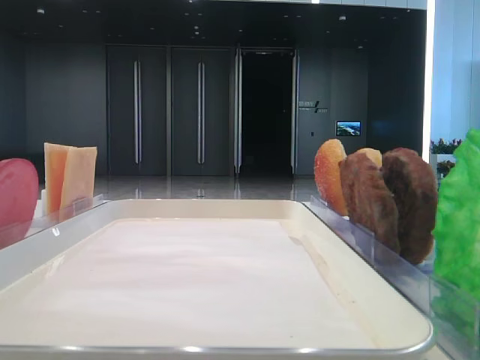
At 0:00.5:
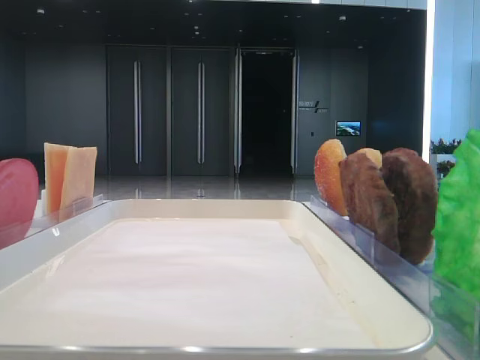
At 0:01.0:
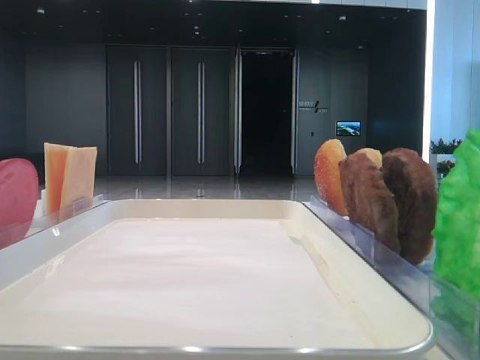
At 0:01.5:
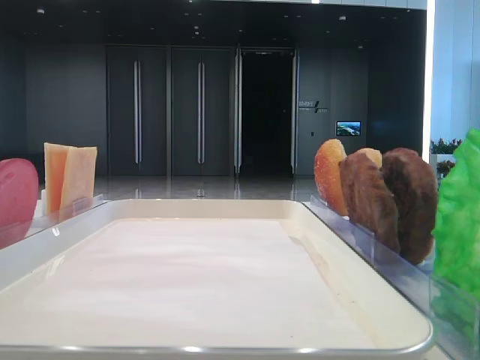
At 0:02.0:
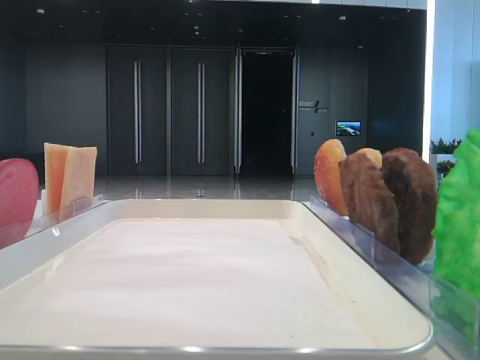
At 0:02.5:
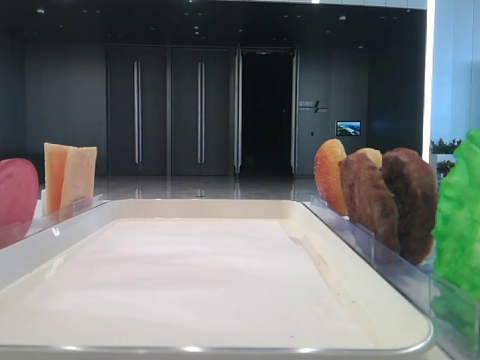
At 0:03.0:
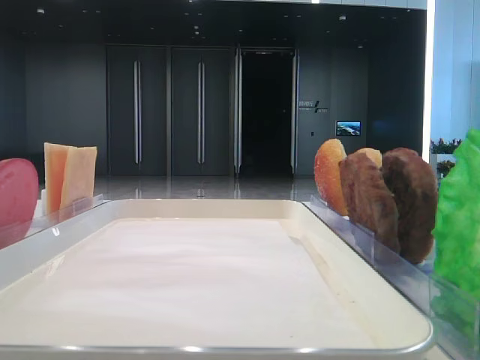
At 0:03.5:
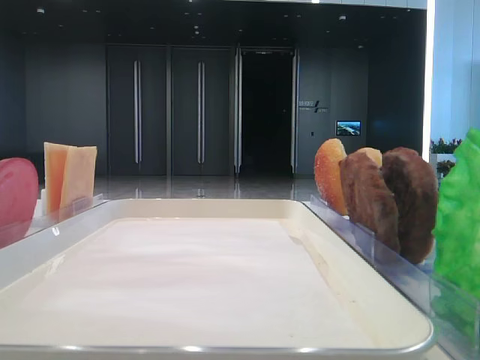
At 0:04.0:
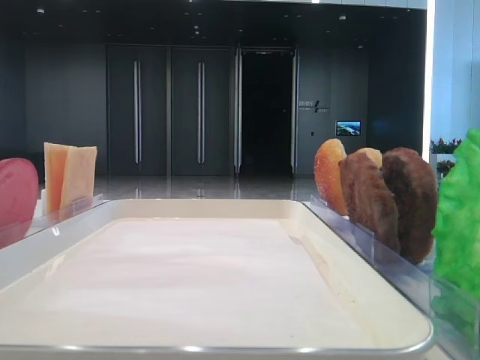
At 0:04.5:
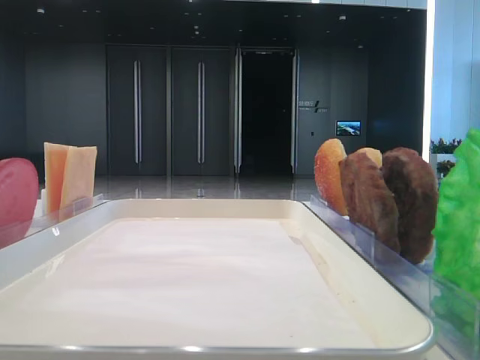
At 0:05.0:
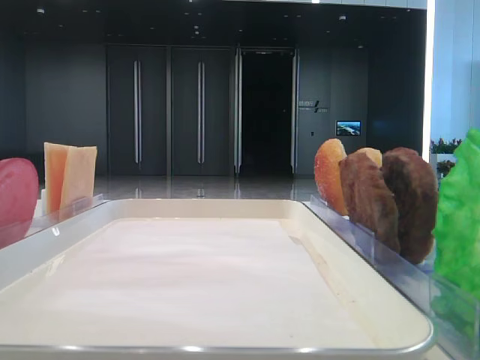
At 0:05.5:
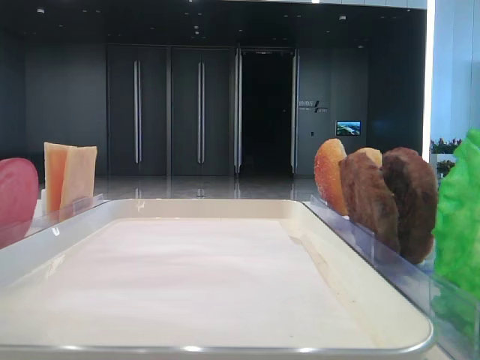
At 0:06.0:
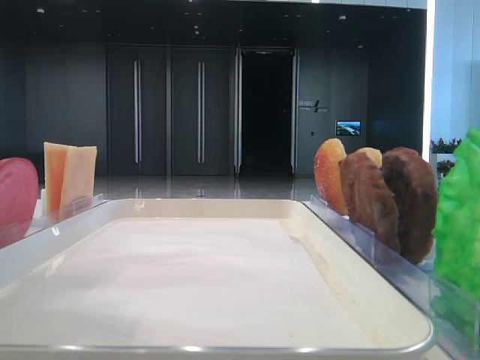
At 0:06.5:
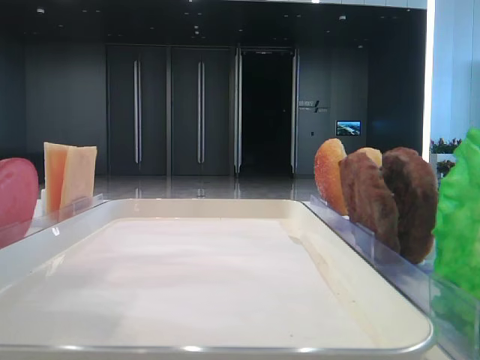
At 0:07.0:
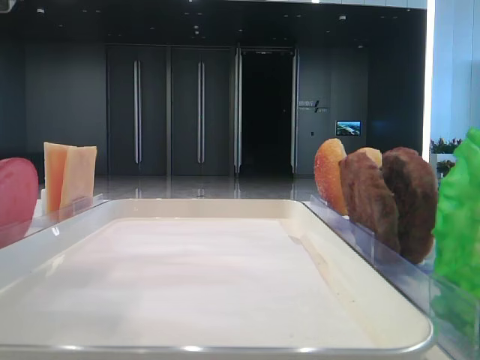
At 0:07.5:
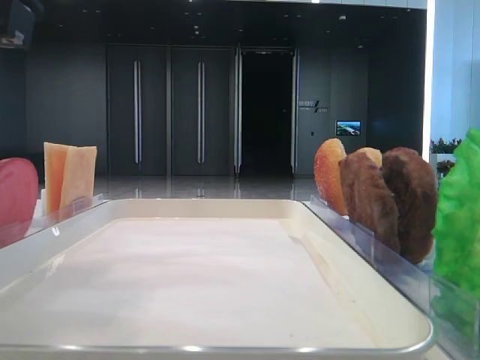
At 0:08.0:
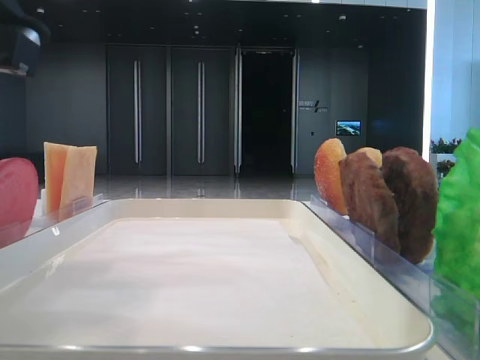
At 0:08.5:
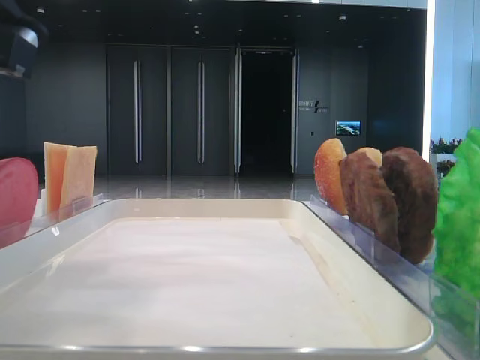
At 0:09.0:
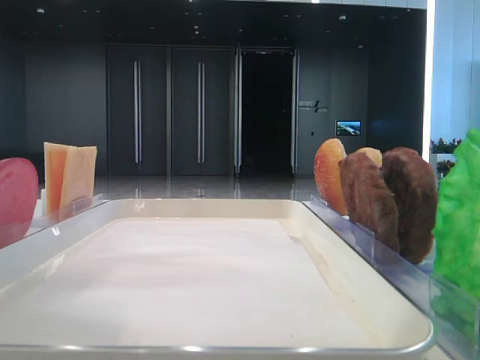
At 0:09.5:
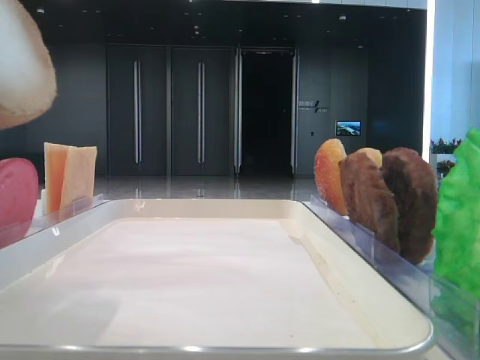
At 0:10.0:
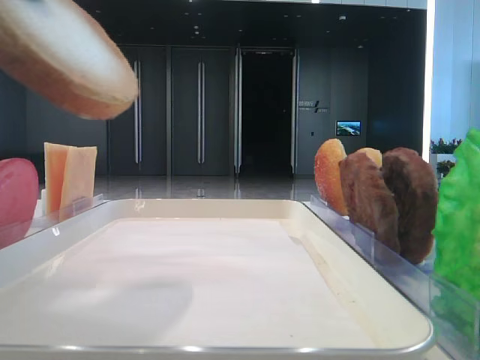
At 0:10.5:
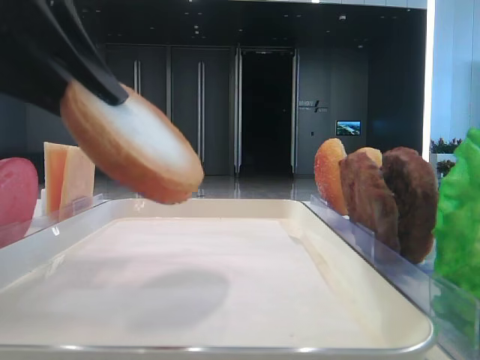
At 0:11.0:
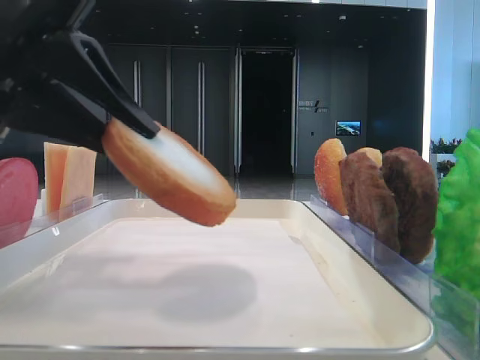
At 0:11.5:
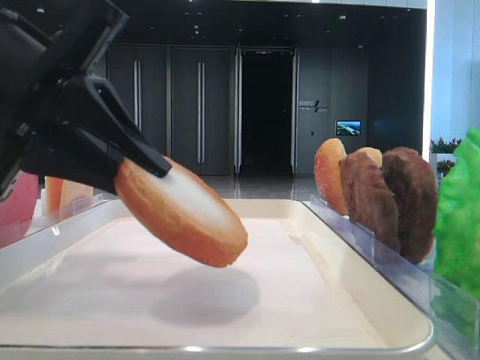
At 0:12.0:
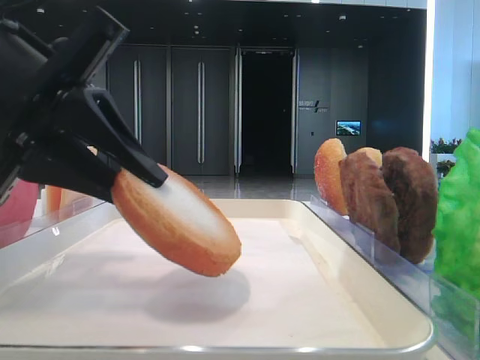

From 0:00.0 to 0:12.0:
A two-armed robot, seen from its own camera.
Step, from 0:00.0 to 0:07.5: Pick up the bottom bread with the left hand.
From 0:04.0 to 0:06.0: The left gripper travels to the right by about 15 cm.
From 0:08.0 to 0:10.0: The left gripper is displaced upward by approximately 5 cm, and closes up.
From 0:10.0 to 0:12.0: The left gripper is displaced downward and forward by roughly 15 cm.

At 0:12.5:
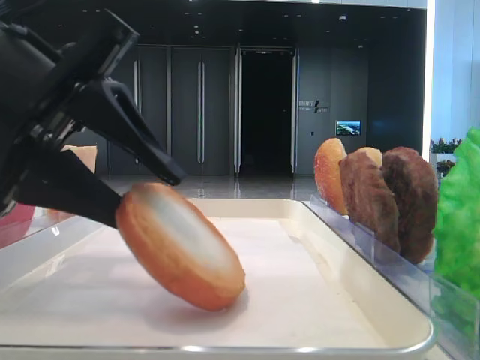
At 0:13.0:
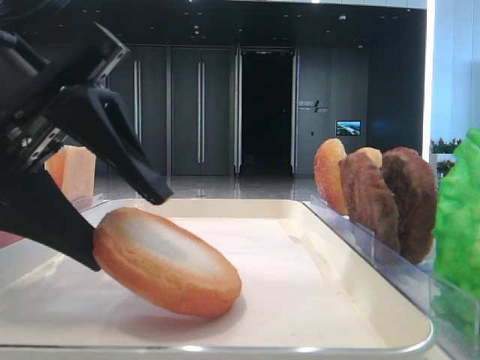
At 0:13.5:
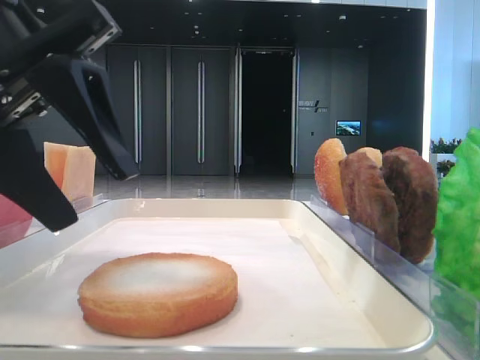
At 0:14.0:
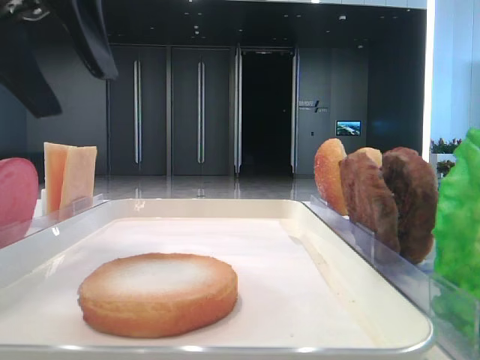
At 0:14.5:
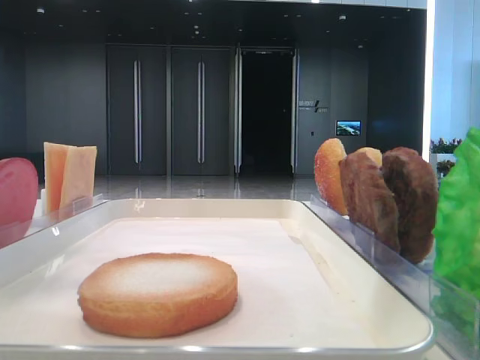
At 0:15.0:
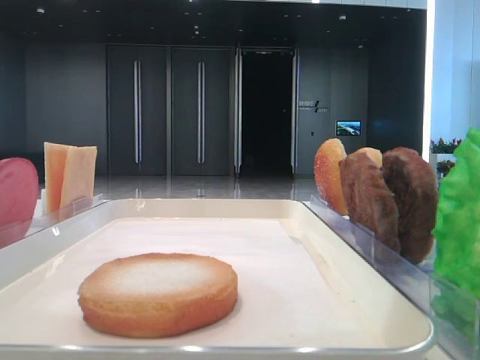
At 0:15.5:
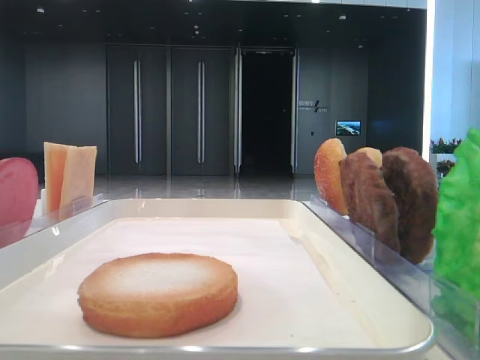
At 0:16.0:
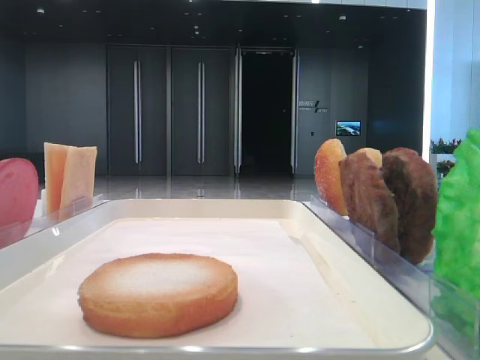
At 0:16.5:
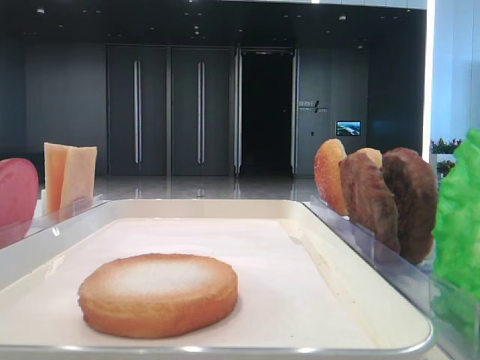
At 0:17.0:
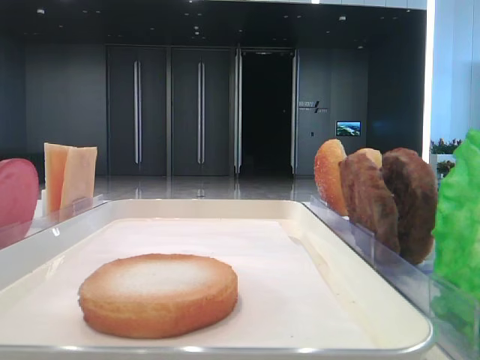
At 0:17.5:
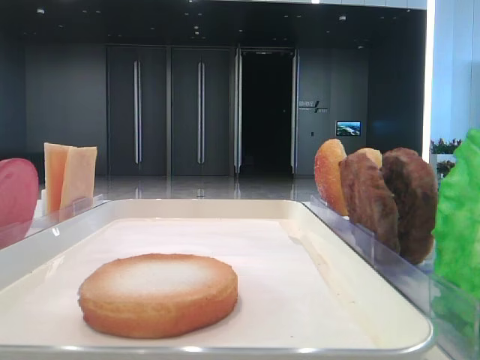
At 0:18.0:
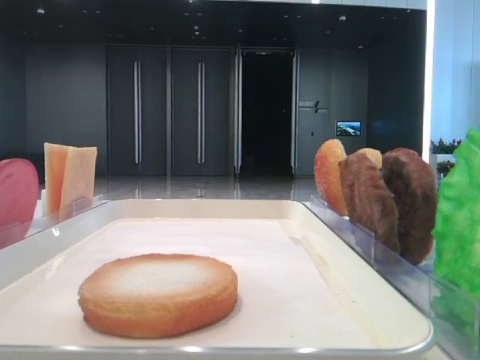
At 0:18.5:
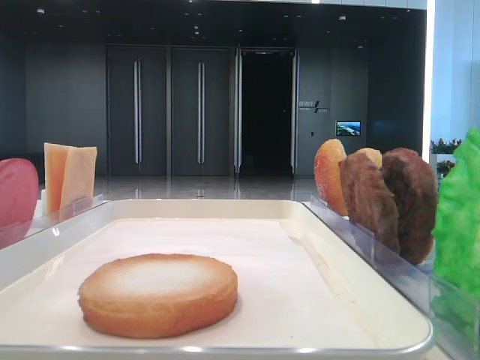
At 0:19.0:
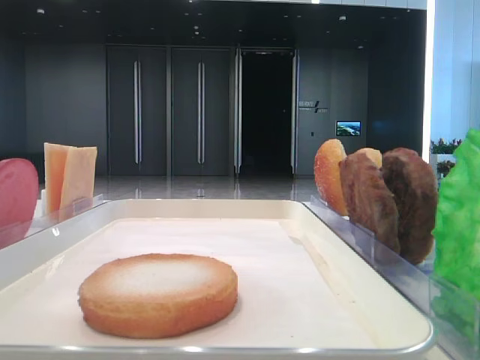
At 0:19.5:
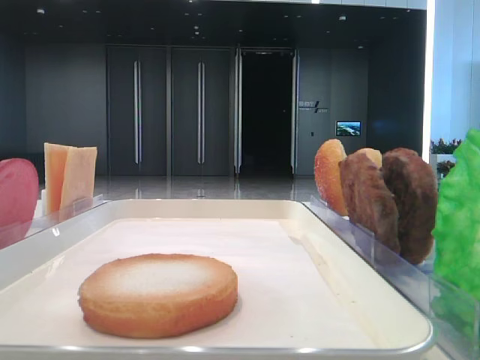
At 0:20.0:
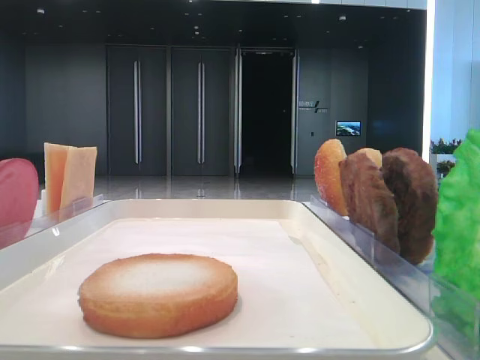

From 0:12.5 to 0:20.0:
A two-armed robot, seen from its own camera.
From 0:12.5 to 0:14.5: The left gripper moves upward and to the left, some 15 cm, and opens up.
From 0:18.0 to 0:20.0: Neither gripper changes place.

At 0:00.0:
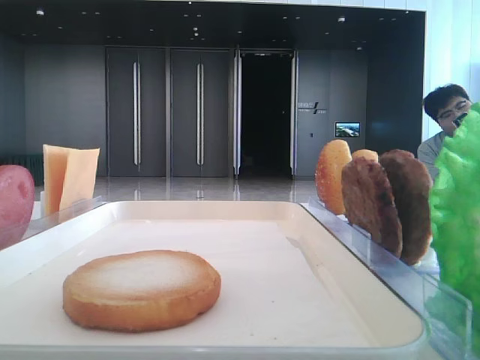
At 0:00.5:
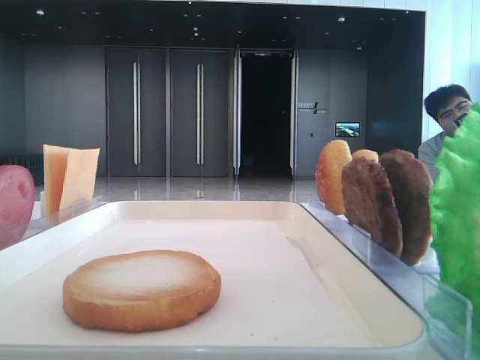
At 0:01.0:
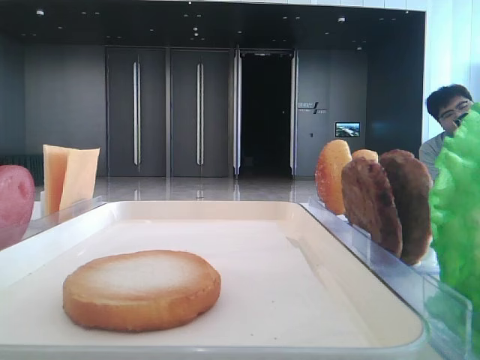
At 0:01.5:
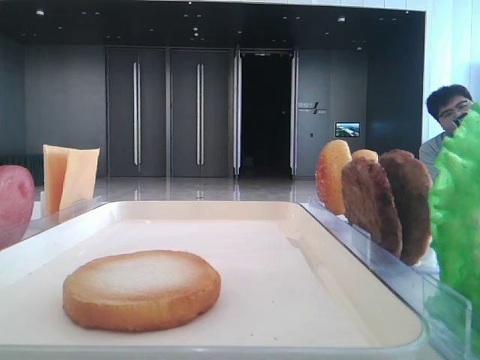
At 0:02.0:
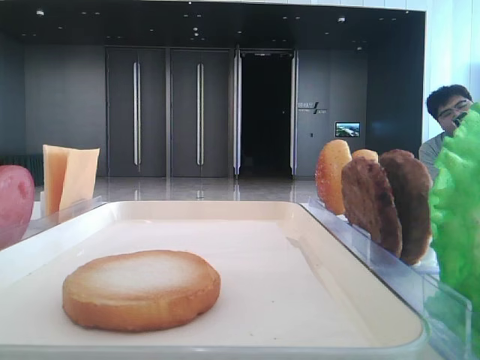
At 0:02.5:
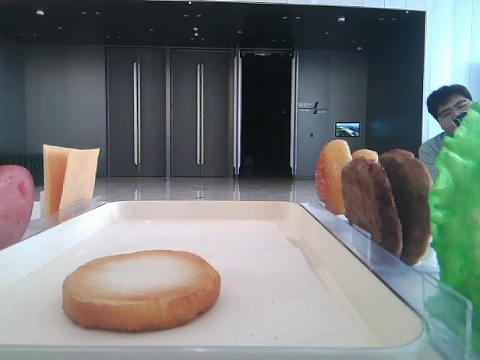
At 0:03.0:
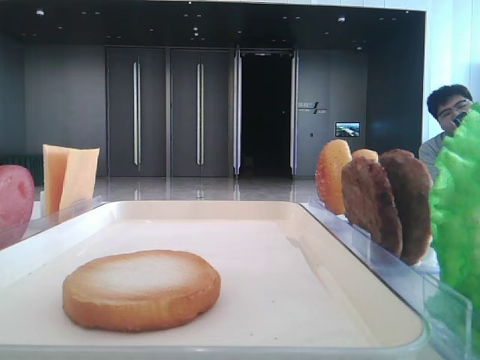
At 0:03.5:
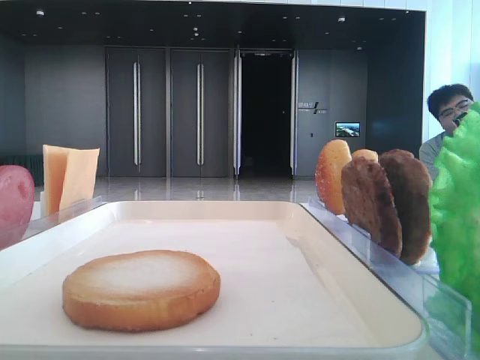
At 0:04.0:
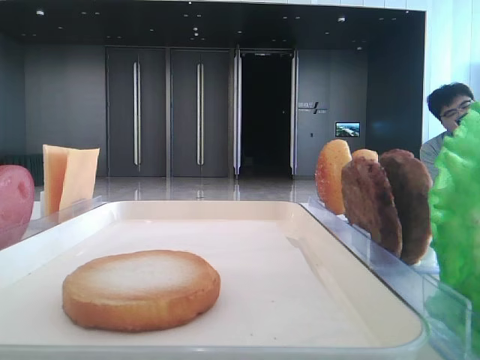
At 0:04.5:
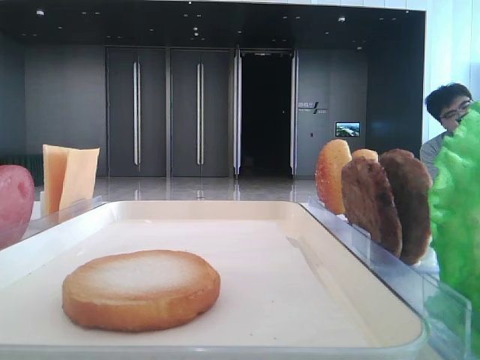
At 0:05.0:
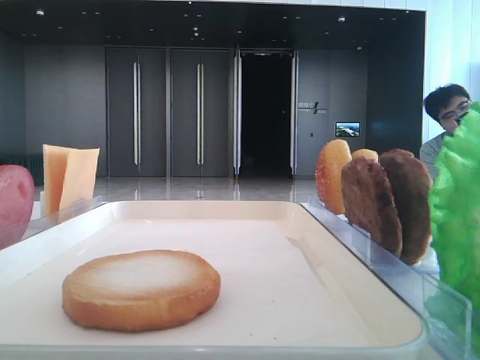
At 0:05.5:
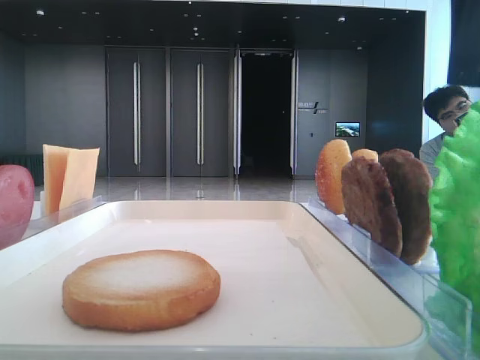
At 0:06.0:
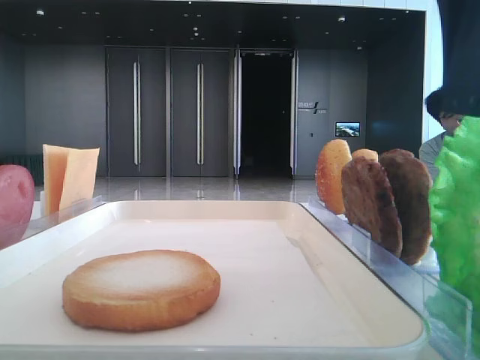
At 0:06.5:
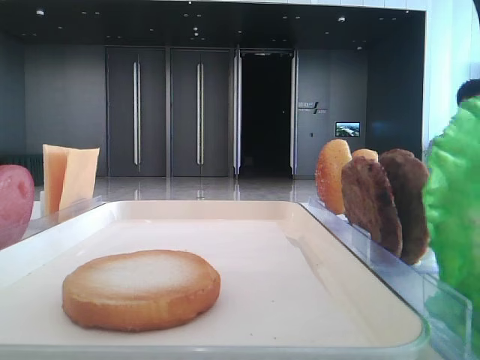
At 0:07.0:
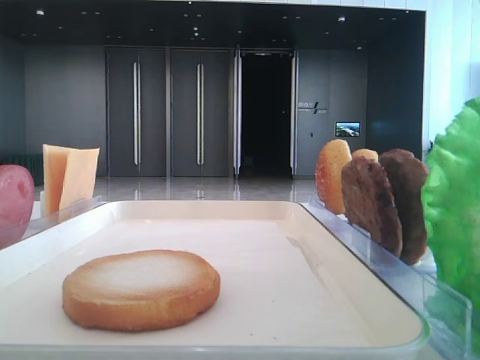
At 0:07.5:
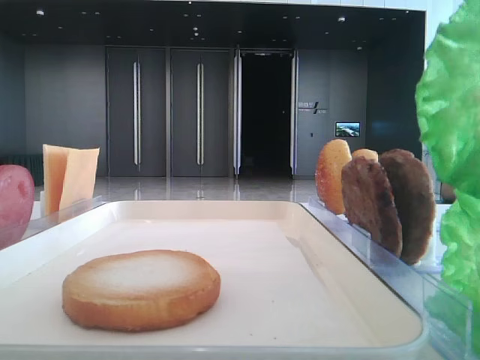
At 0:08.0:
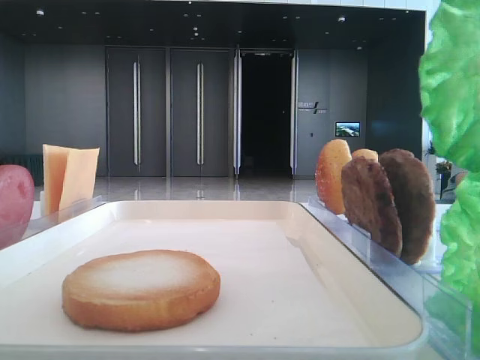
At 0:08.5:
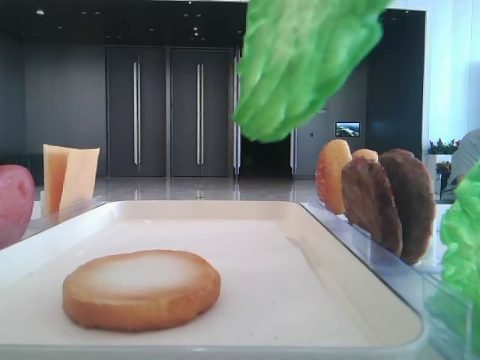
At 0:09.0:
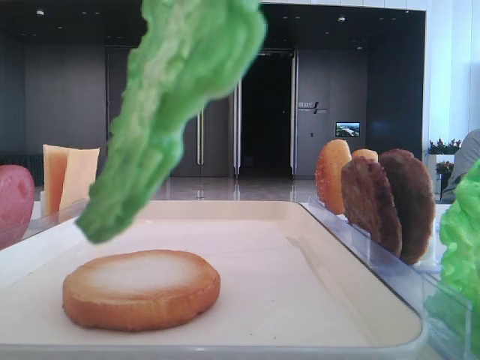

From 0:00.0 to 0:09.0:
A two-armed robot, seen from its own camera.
Step, from 0:00.0 to 0:06.5: Grab the lettuce leaf with the right hand.
From 0:04.5 to 0:07.0: The right gripper travels forward and downward by some 10 cm, and closes up.
From 0:07.0 to 0:09.0: The right gripper shifts some 10 cm to the left and backward.
